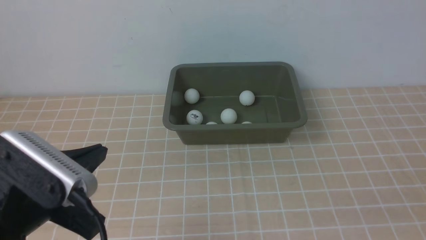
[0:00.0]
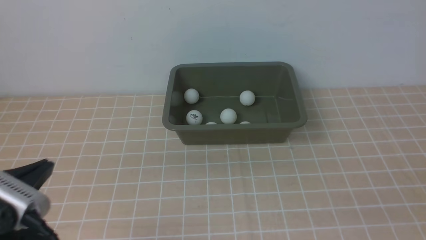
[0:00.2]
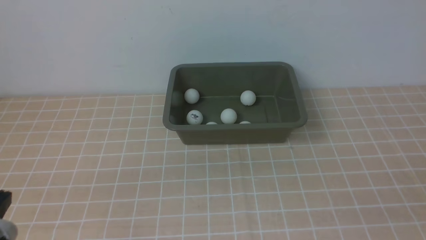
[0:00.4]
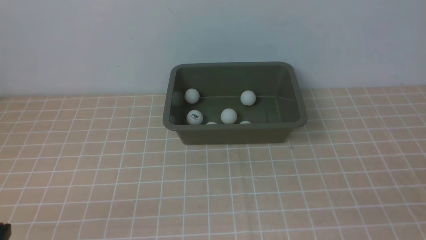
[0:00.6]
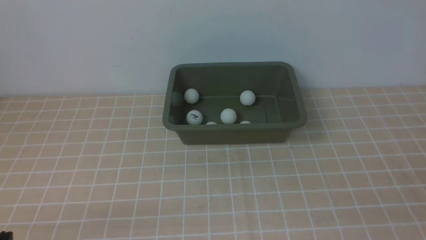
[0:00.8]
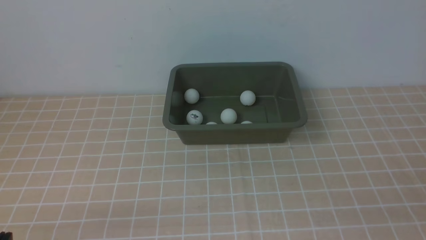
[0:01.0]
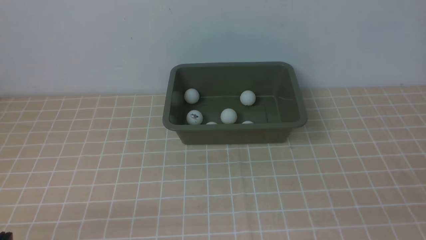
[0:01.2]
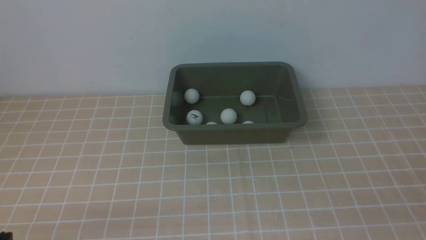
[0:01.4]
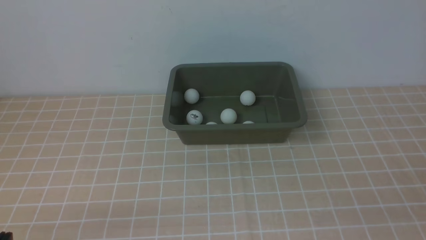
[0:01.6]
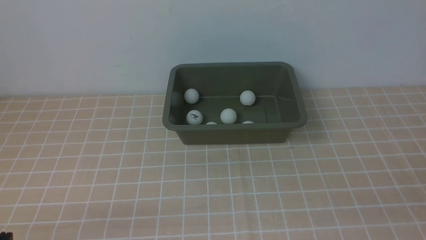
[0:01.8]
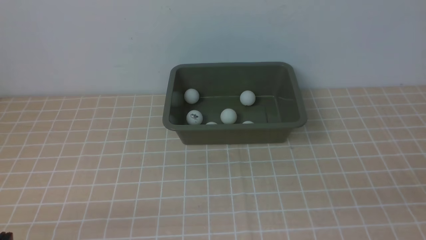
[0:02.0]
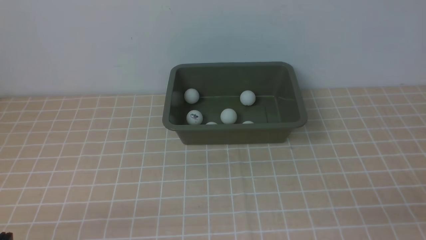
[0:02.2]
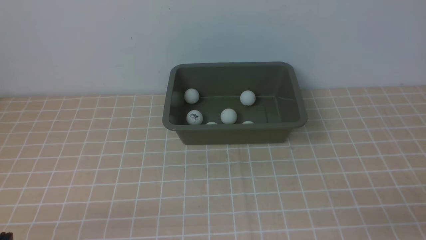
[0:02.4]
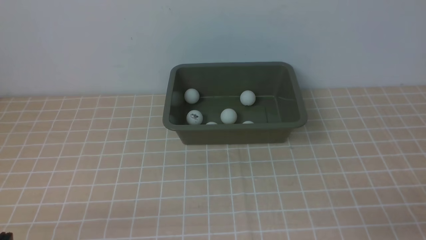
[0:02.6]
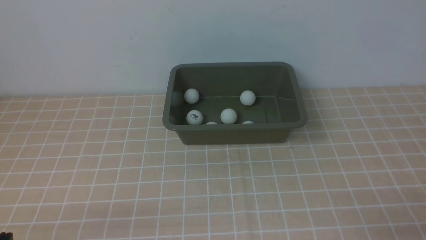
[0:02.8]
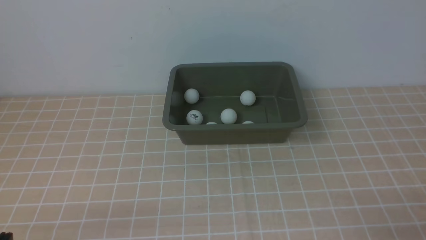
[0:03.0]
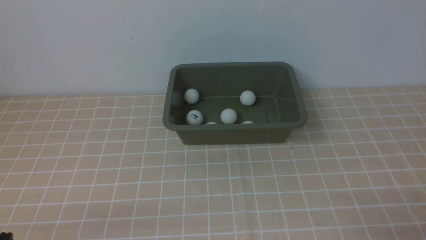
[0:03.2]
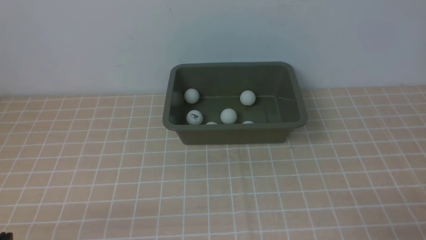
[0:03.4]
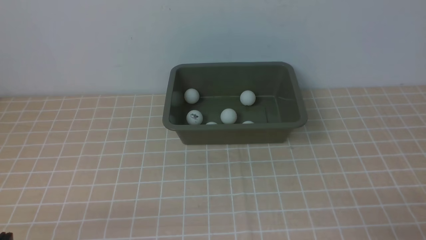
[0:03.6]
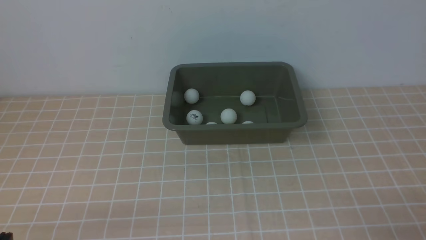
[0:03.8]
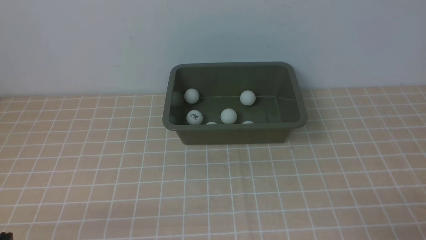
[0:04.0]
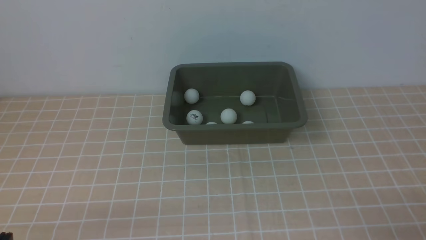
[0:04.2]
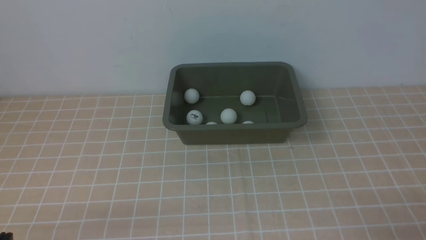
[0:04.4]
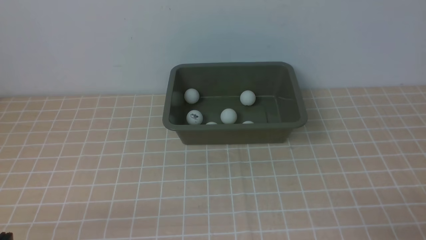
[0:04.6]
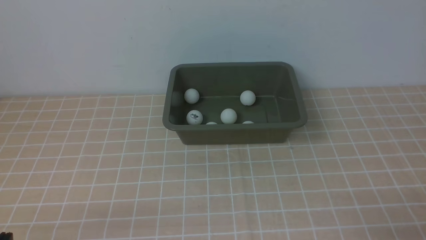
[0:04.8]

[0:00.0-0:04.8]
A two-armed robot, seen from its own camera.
0:00.0 to 0:01.6: The left gripper heads downward, backward and to the left, covering about 15 cm.
0:03.2 to 0:04.8: Both grippers stay about where they are.
